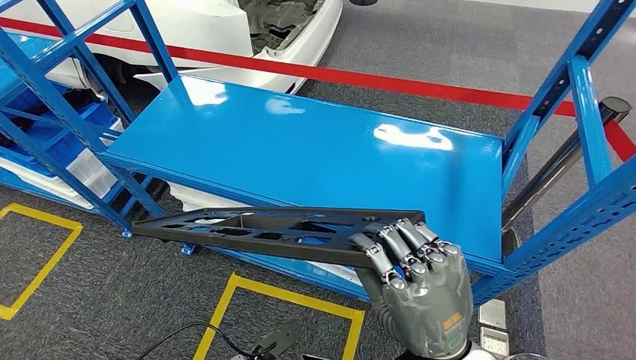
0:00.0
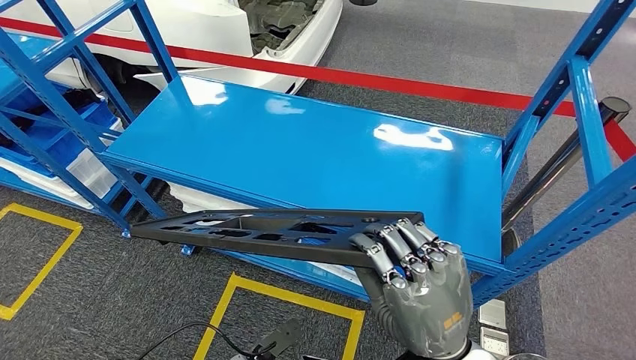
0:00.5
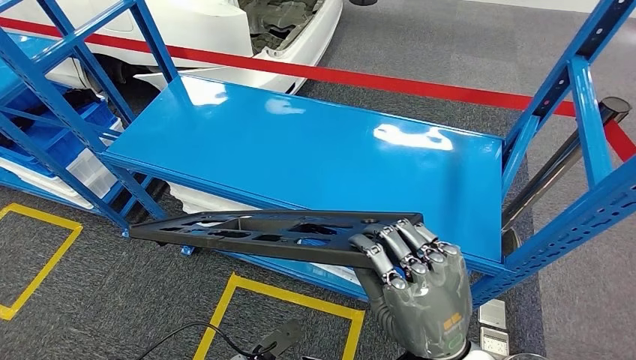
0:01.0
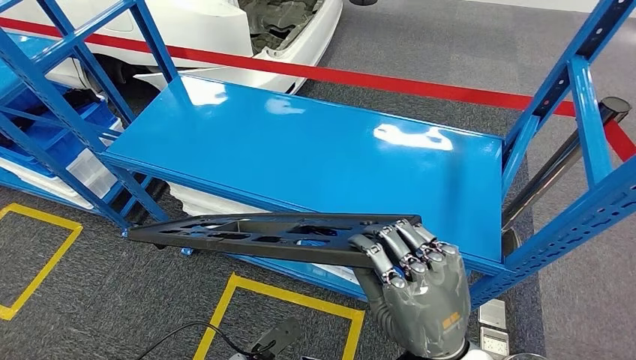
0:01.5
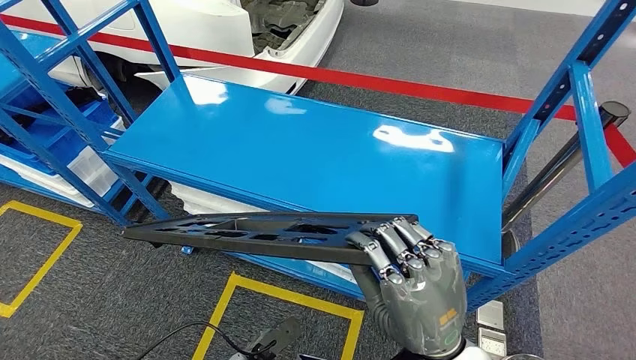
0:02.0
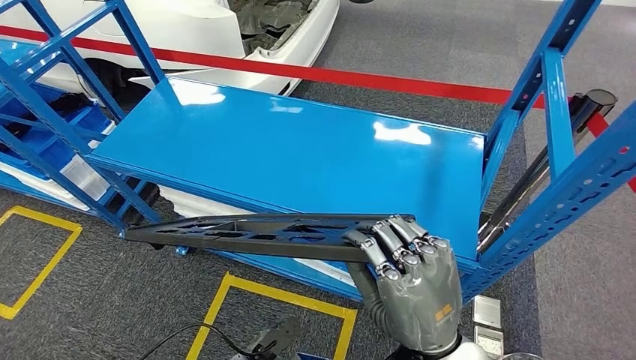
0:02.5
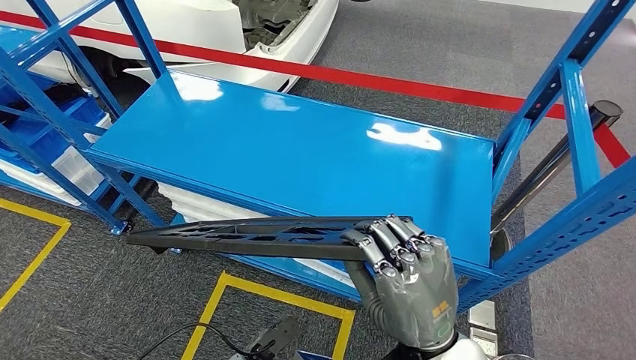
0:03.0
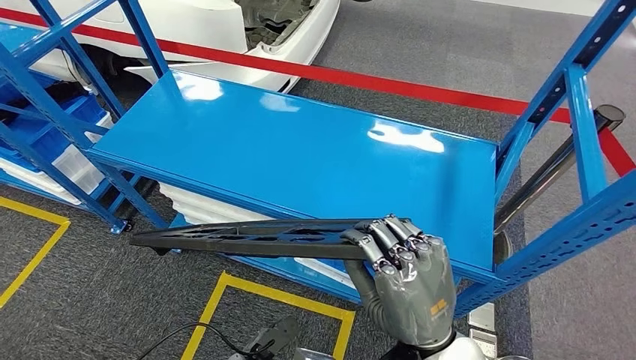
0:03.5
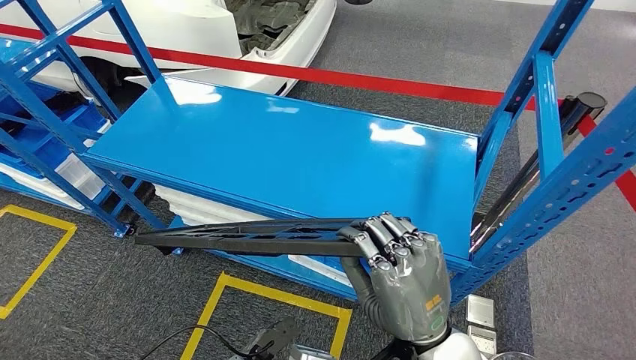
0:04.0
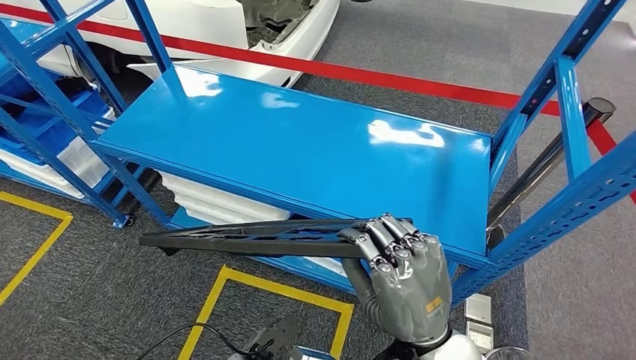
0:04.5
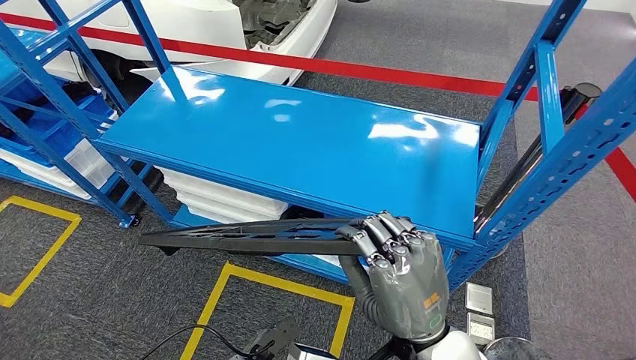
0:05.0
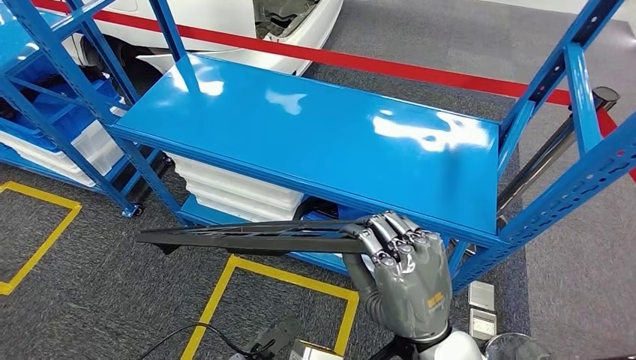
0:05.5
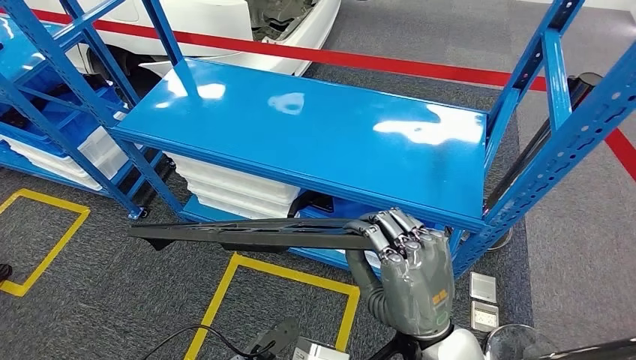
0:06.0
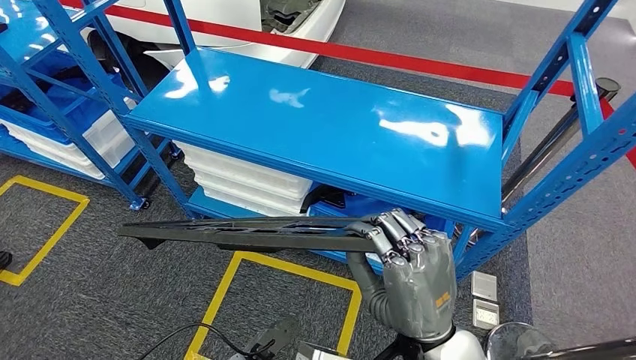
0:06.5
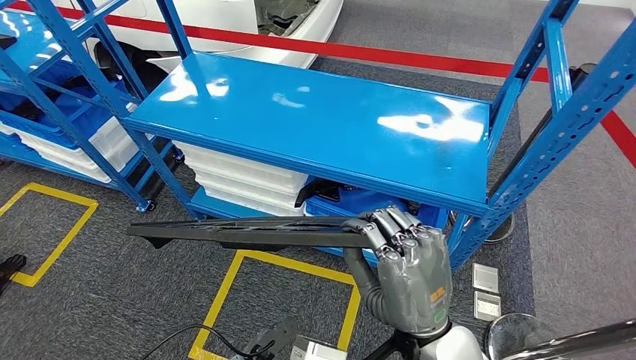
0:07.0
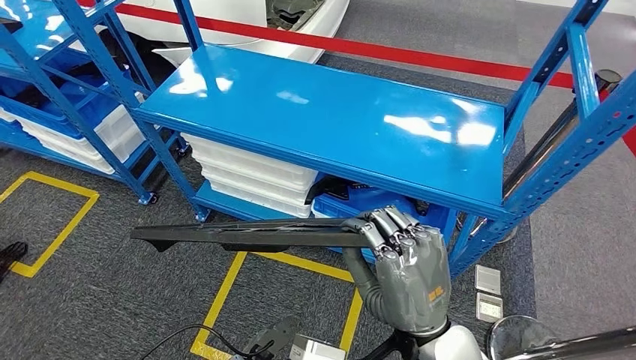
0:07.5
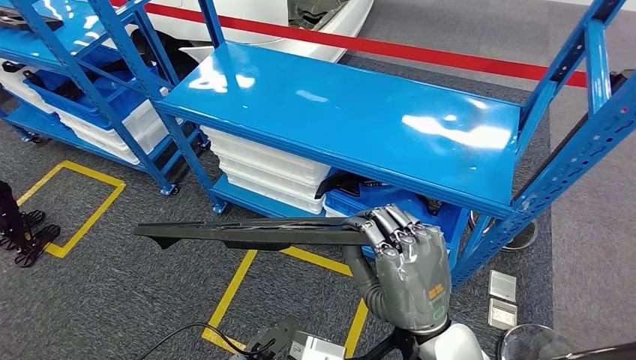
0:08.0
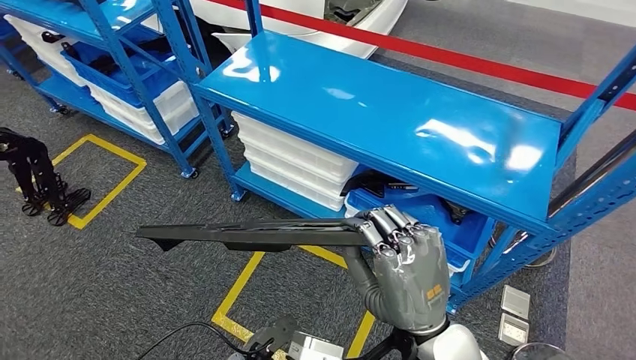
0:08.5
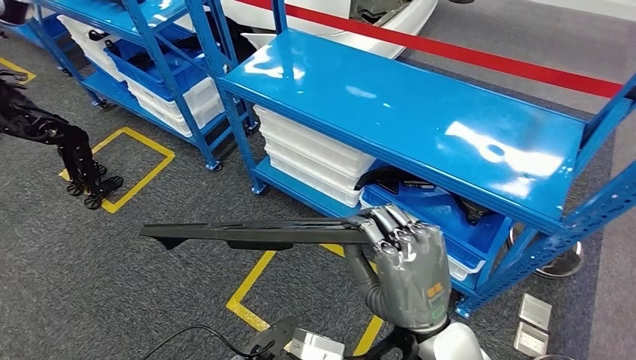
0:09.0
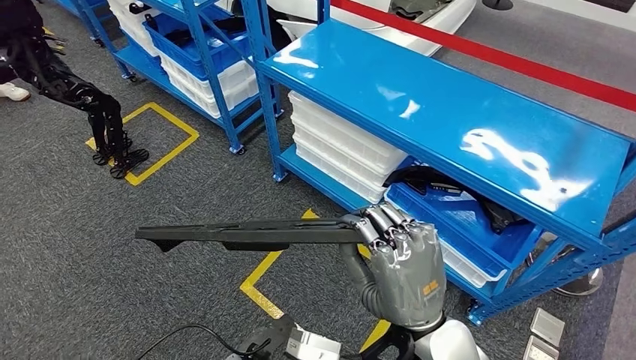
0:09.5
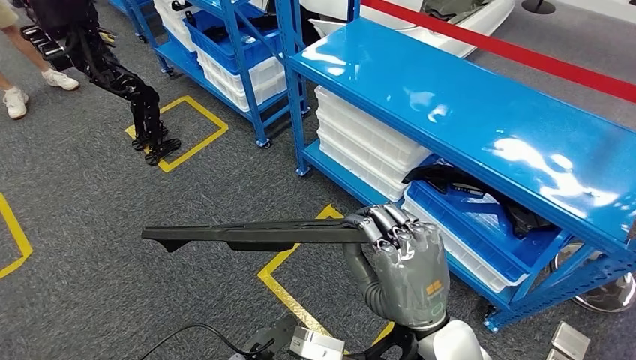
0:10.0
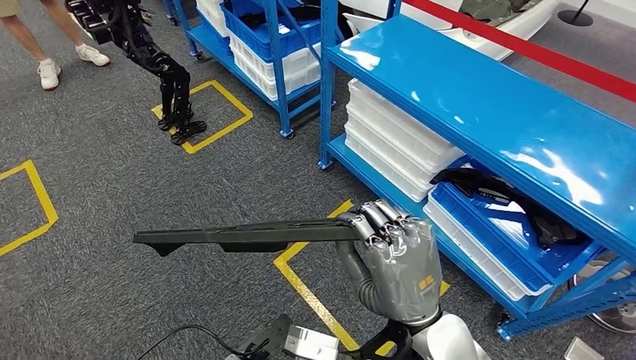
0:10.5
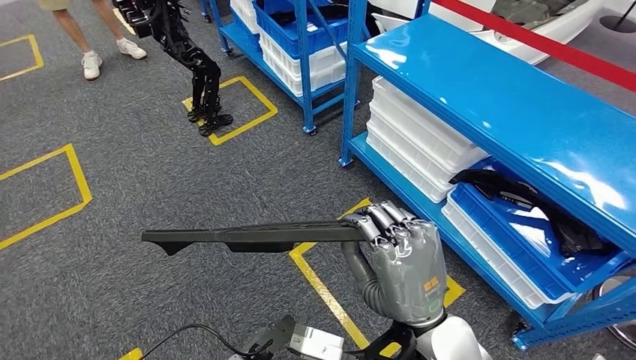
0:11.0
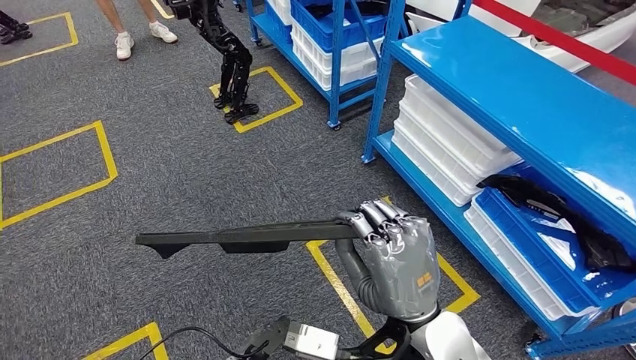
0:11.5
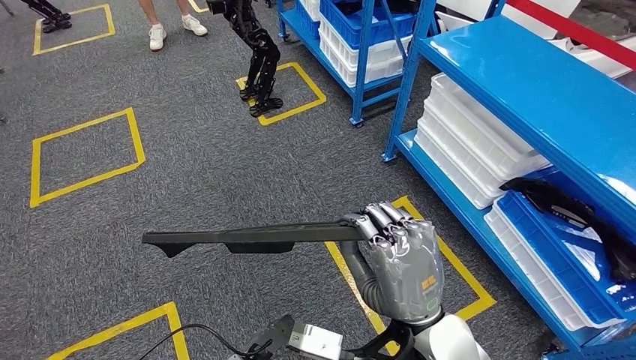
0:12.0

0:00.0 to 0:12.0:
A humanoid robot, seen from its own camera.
0:00.0 to 0:02.0: The two hands keep their place.

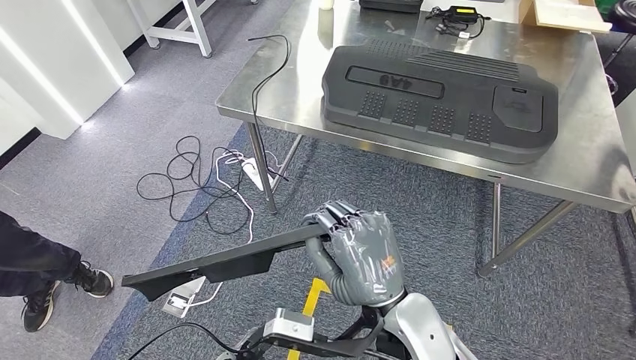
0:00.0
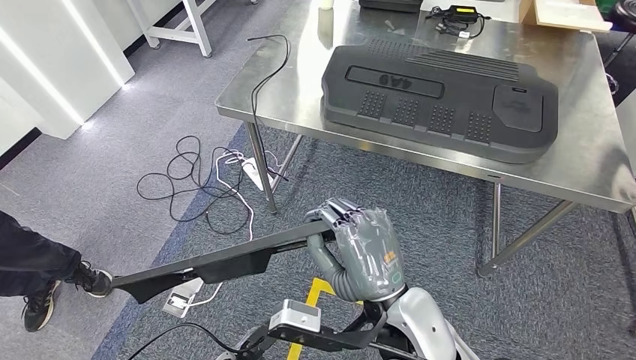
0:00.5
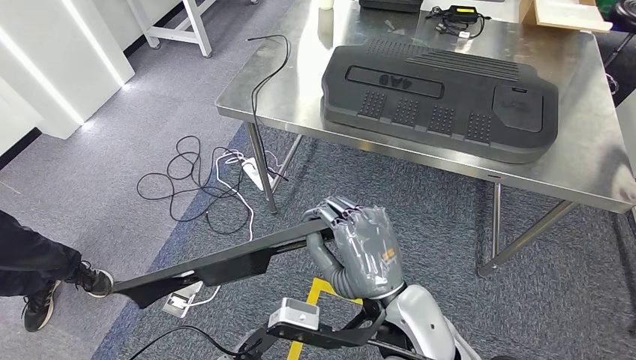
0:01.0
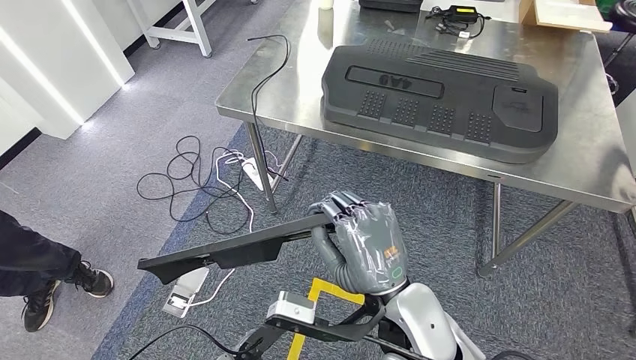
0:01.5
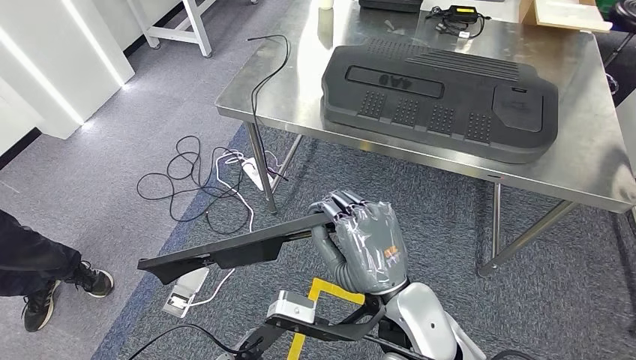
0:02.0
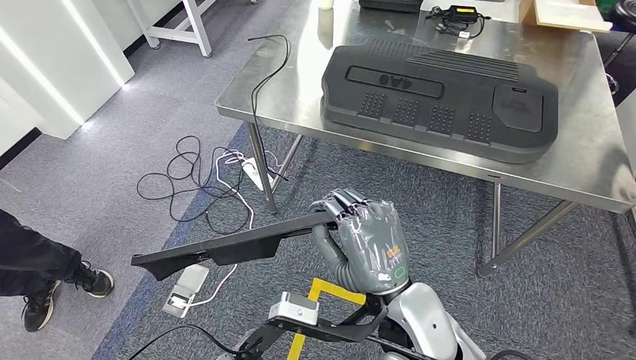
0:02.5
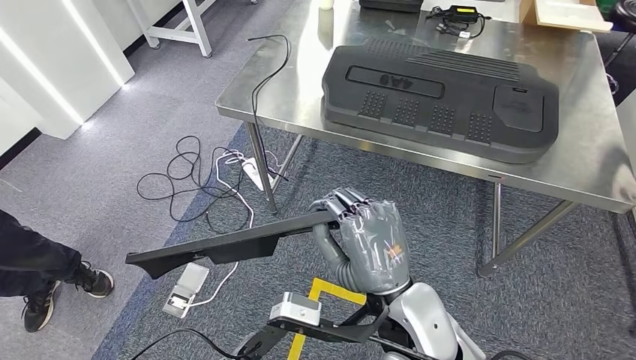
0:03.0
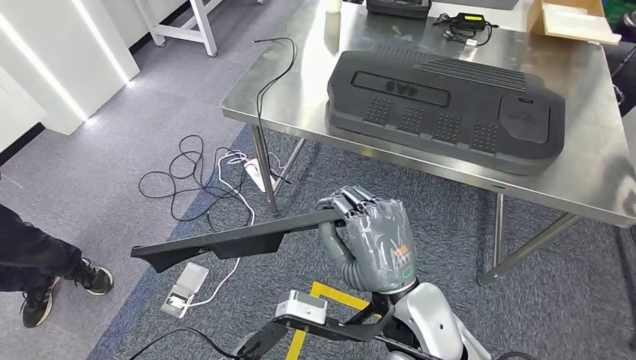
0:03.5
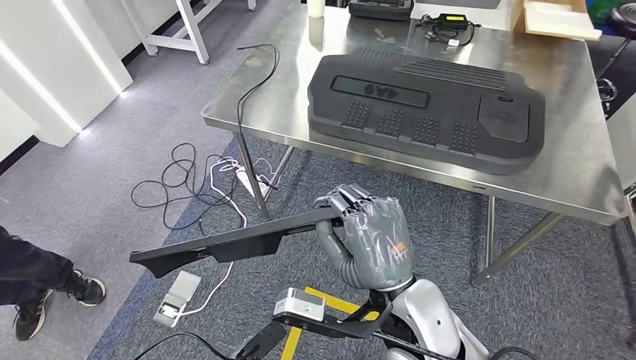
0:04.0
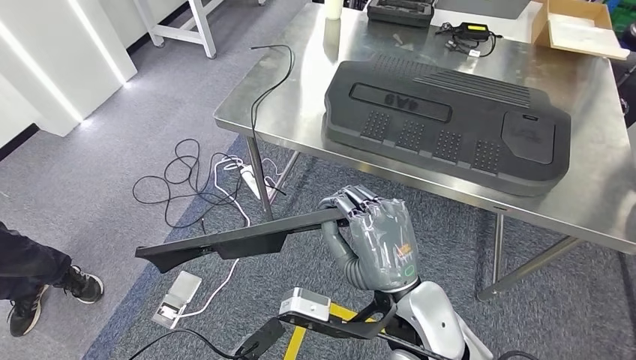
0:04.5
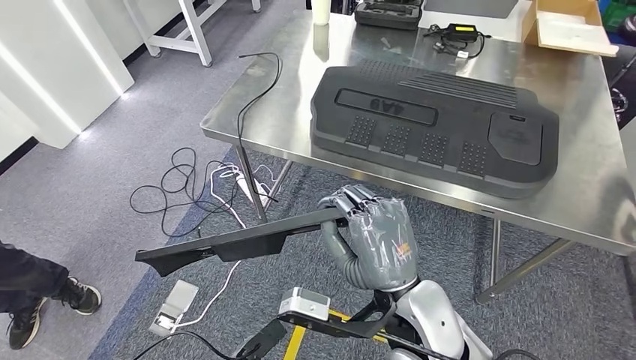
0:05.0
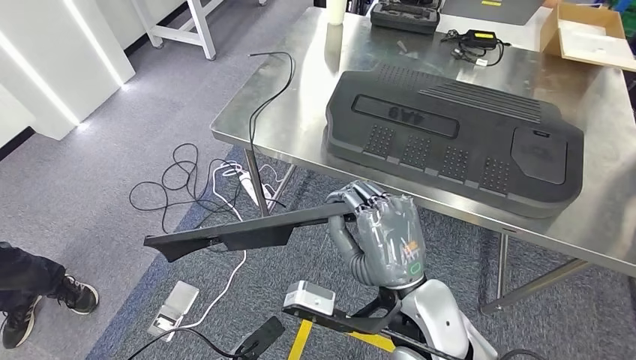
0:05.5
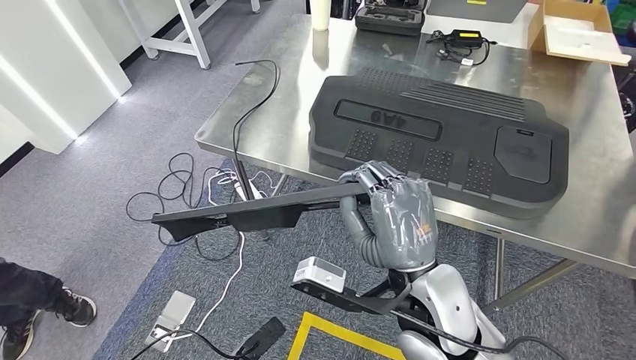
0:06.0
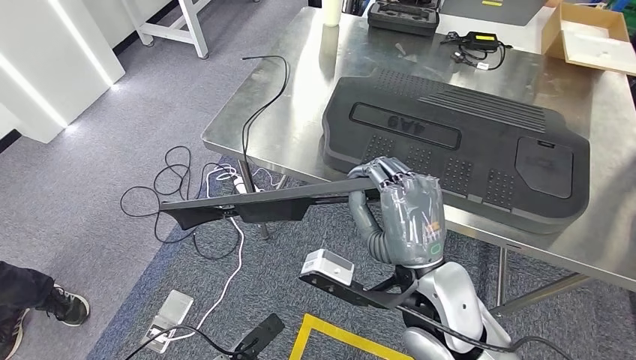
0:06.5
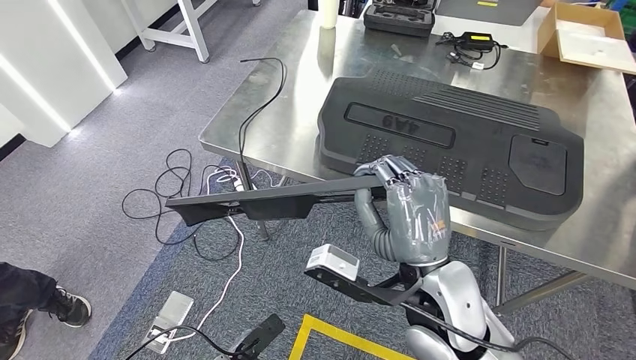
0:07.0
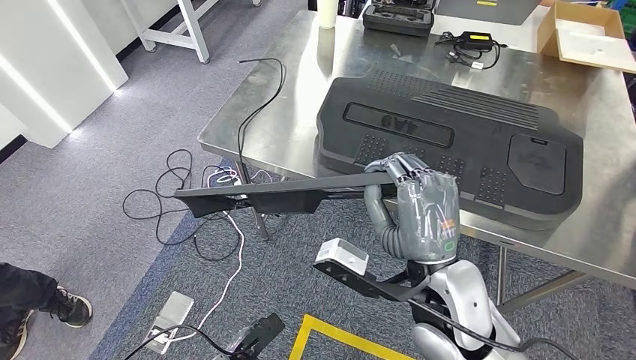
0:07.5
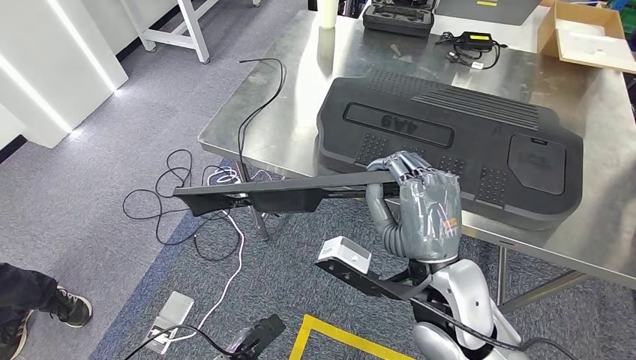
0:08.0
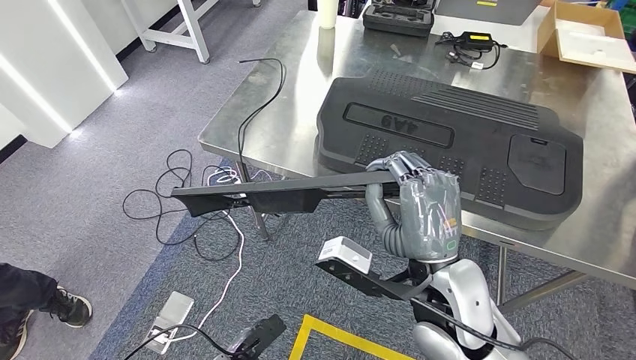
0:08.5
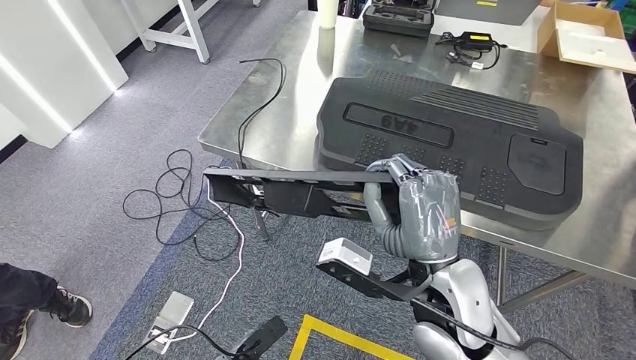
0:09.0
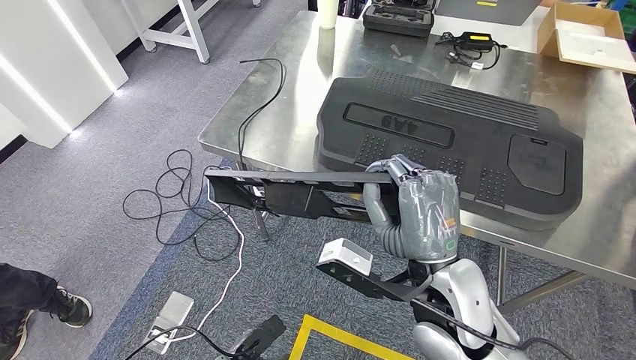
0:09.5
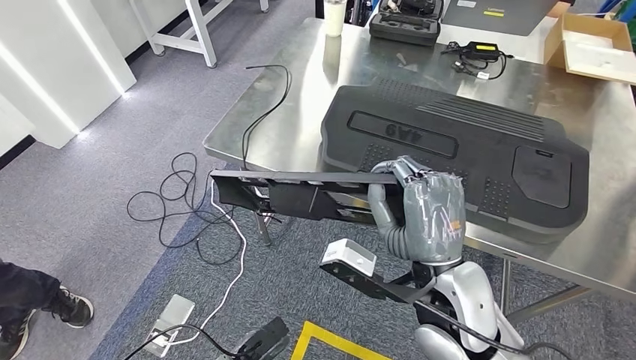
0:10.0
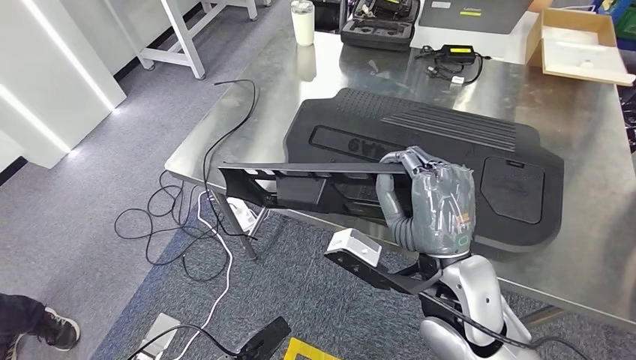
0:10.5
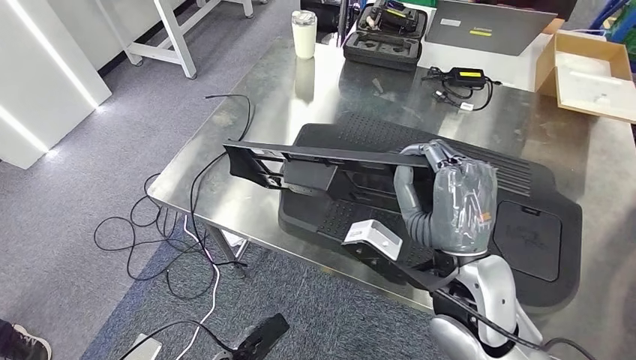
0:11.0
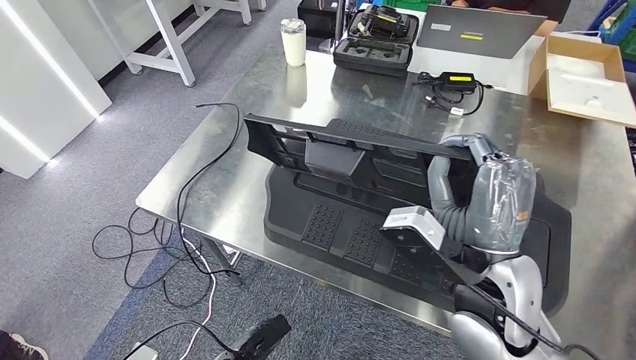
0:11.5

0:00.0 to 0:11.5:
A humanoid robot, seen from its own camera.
Step, 0:00.0 to 0:05.5: Move the large material to the front of the workbench.
0:00.0 to 0:02.0: The hands stay close to where they were, moving slightly.
0:07.5 to 0:09.5: The hands move only a little.
